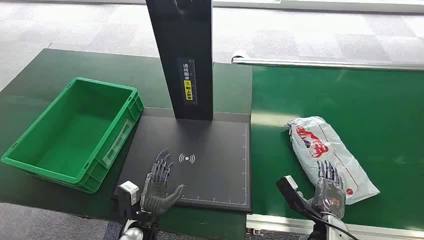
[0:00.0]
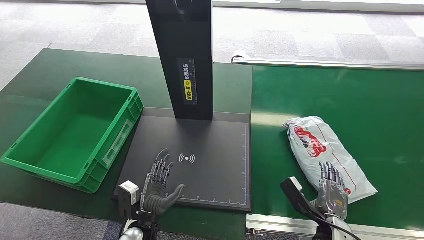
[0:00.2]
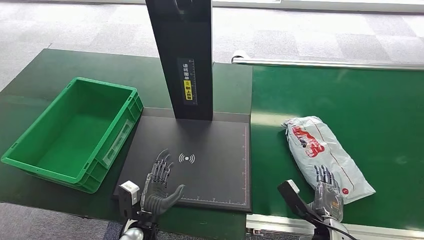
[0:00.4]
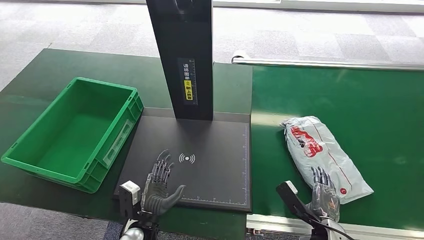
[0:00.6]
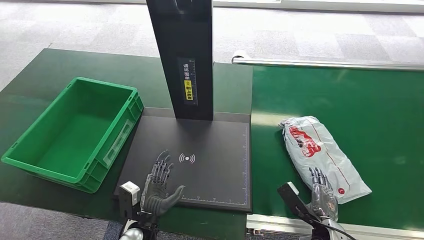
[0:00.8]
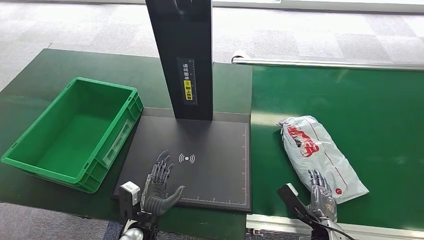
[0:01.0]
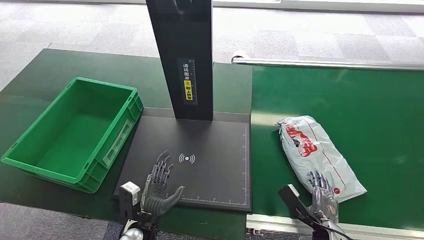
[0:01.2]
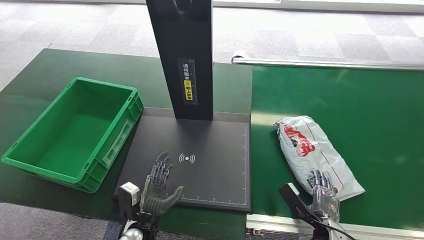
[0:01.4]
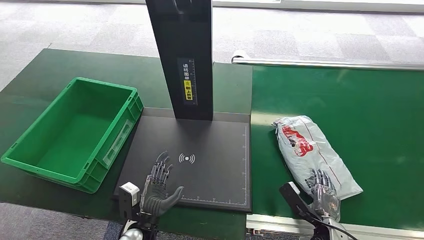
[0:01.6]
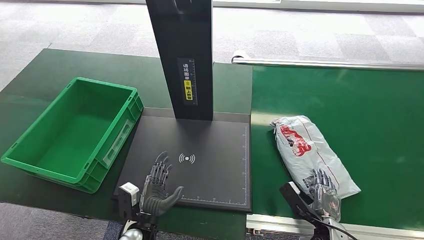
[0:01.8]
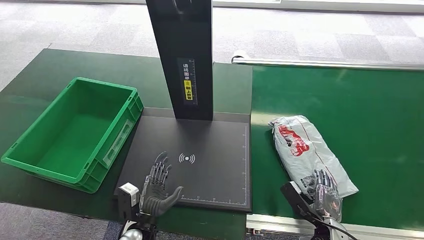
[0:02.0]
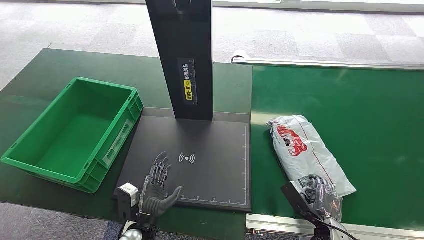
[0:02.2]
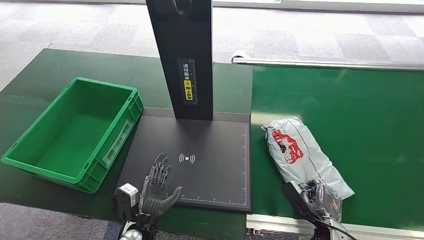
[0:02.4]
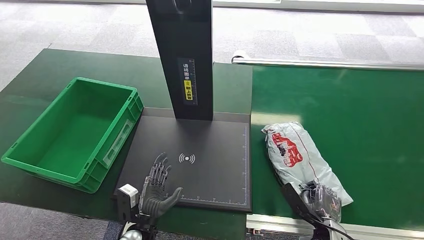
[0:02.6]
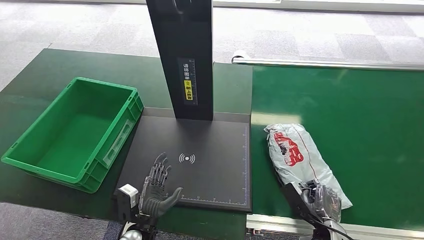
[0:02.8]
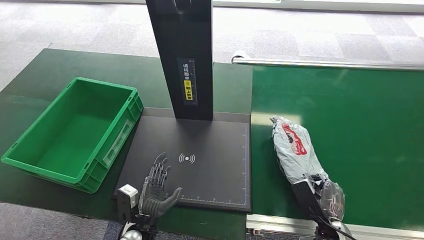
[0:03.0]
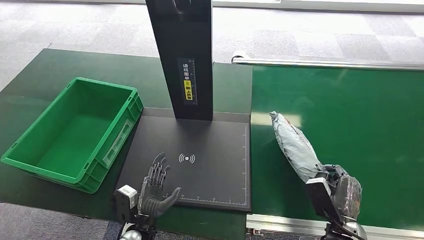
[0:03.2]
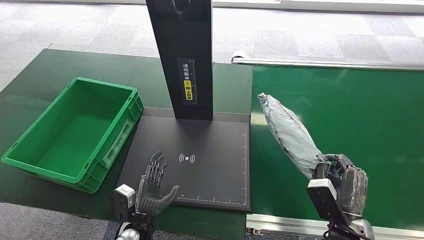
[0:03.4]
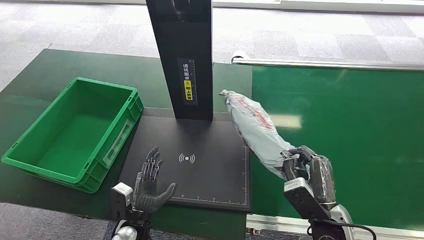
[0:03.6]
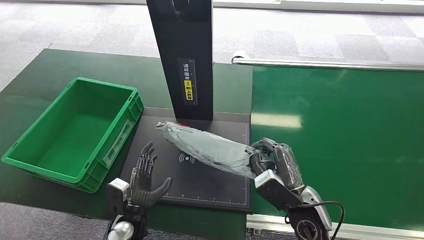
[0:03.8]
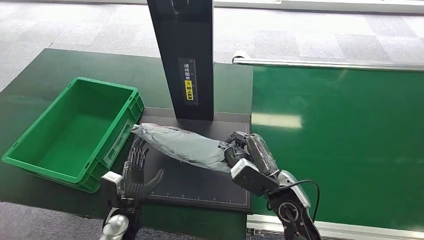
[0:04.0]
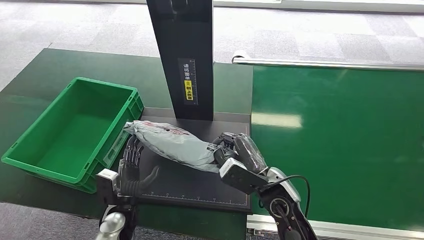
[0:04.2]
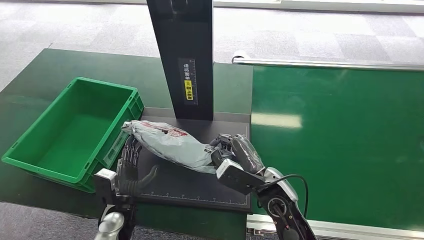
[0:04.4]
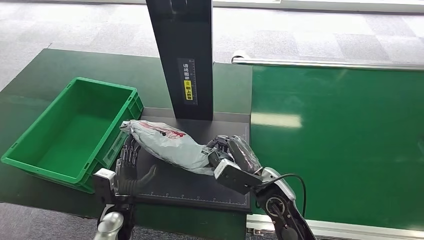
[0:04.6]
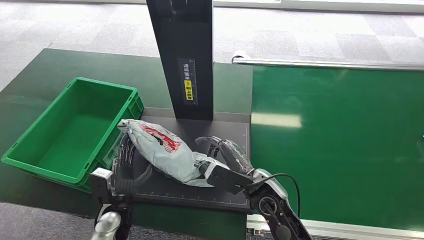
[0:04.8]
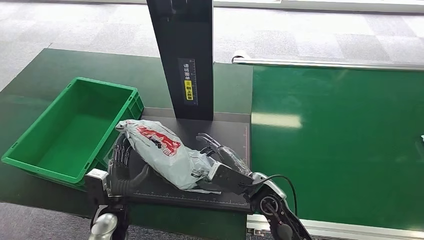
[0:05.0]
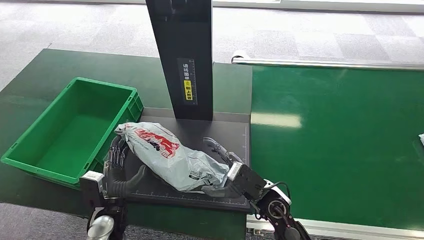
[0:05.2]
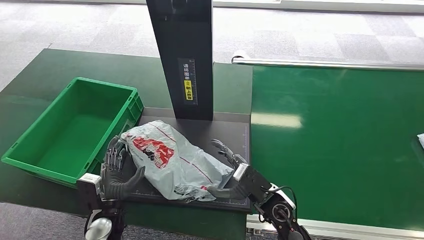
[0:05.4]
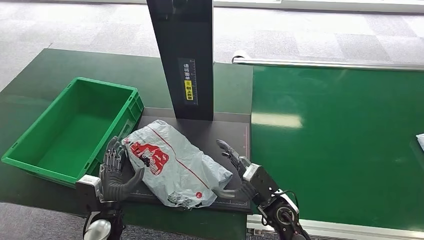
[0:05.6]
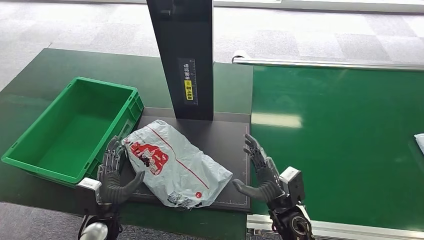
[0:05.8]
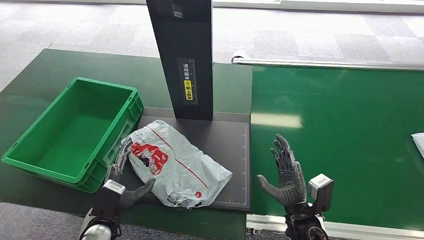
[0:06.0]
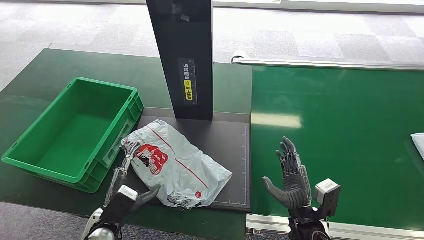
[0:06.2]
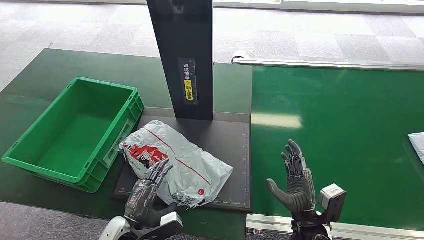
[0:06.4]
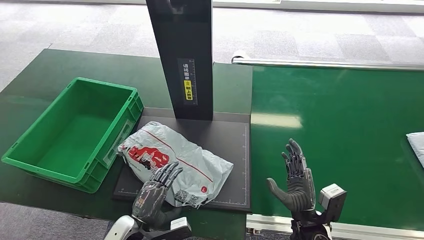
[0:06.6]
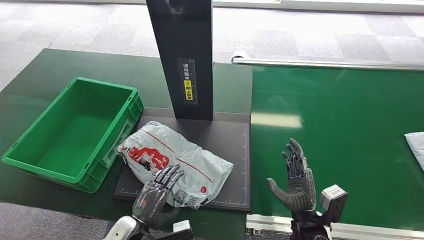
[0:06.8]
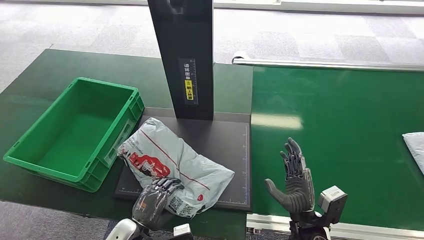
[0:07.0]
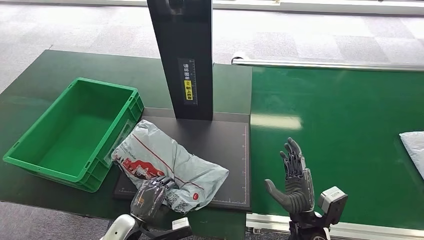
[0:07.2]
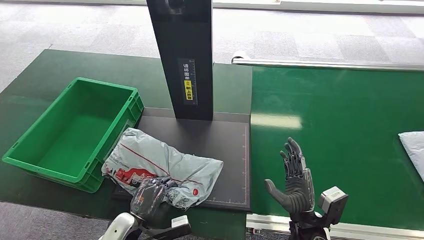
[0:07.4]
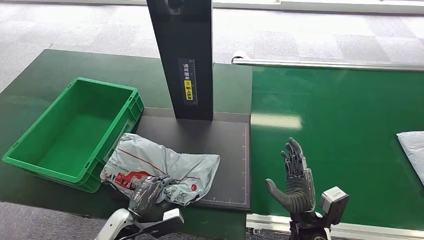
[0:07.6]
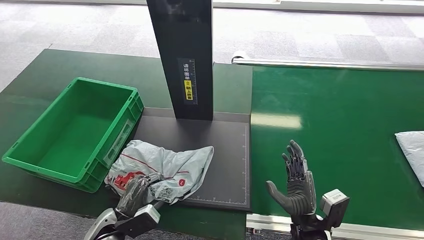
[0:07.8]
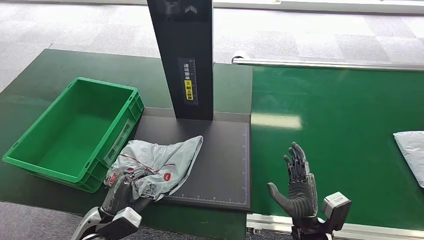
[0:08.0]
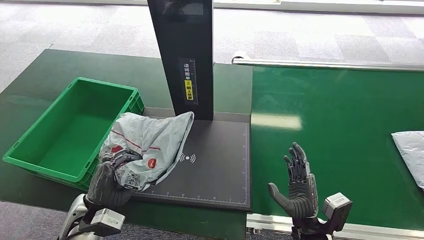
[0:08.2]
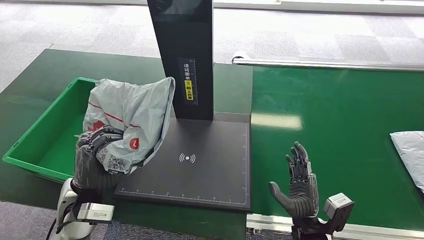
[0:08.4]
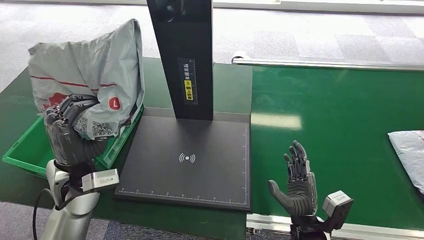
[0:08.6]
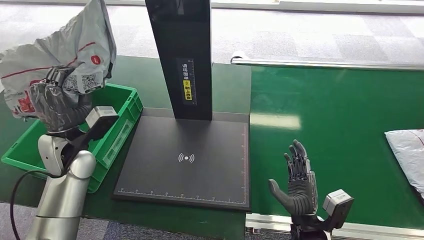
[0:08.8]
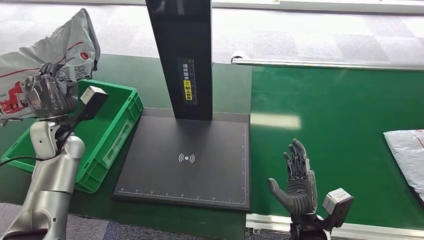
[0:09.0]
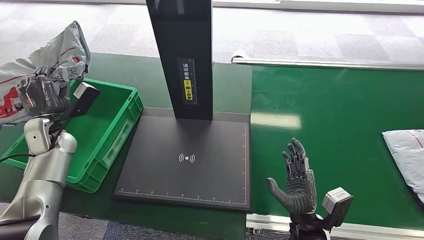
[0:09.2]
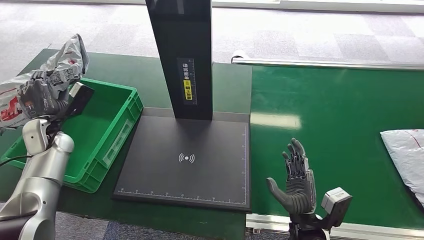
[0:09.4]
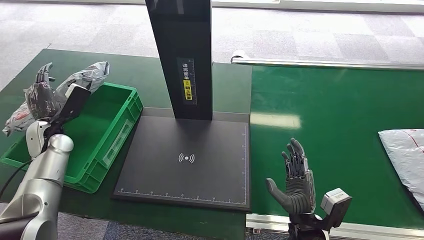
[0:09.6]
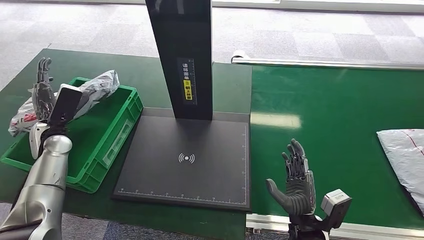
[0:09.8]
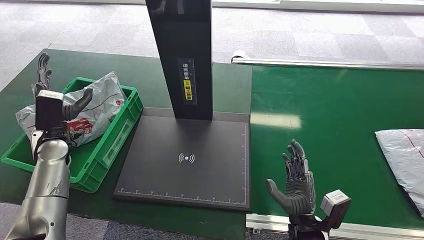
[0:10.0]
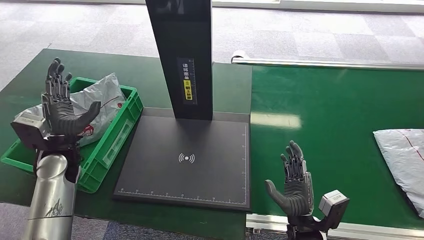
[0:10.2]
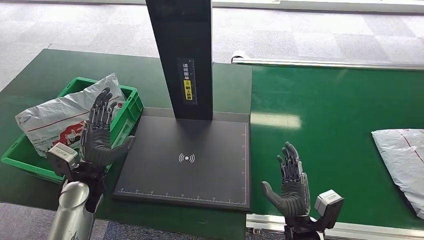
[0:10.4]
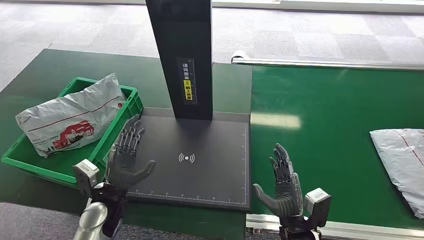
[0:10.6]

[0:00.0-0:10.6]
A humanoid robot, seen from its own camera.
Step, 0:00.0 to 0:03.4: Pick up the package from the conveyor belt.
Step, 0:03.6 to 0:05.4: Place the package onto the inbound machine.
Step, 0:05.8 to 0:08.4: Pick up the package from the inbound machine.
Step, 0:08.6 to 0:10.4: Place the package into the parcel locker.
0:03.0 to 0:04.6: The right hand goes approximately 20 cm to the left, upward and forward. The left hand moves to the left, about 5 cm.
0:04.6 to 0:06.0: The right hand is displaced to the right, downward and backward by roughly 15 cm.

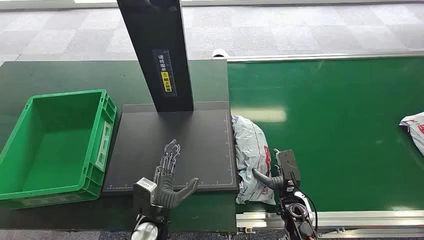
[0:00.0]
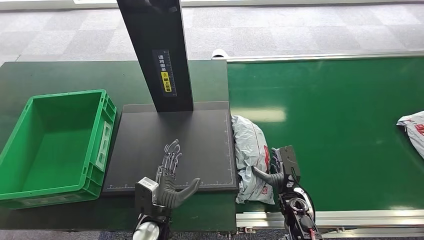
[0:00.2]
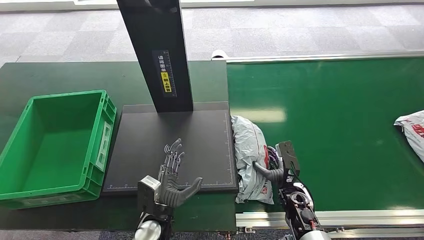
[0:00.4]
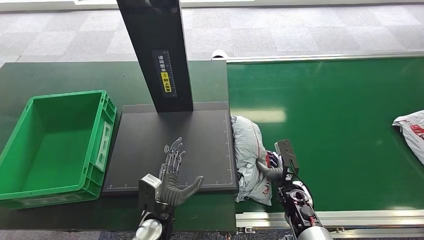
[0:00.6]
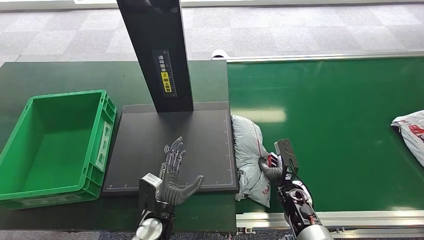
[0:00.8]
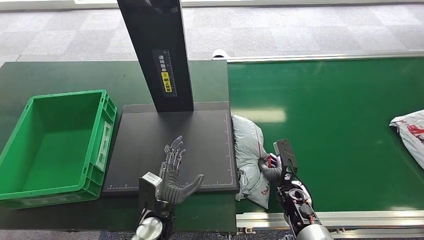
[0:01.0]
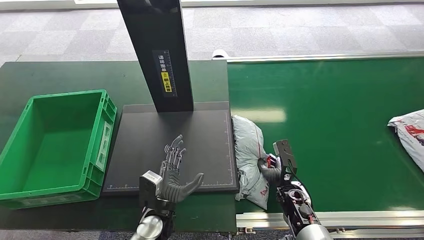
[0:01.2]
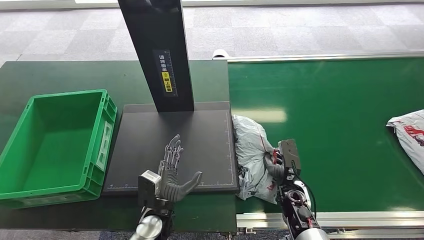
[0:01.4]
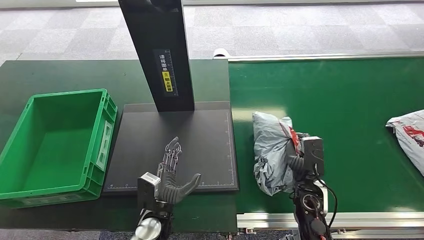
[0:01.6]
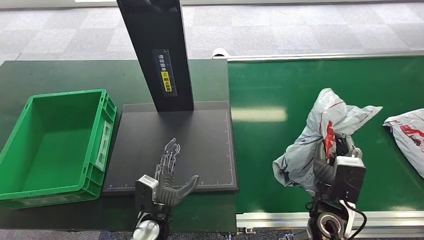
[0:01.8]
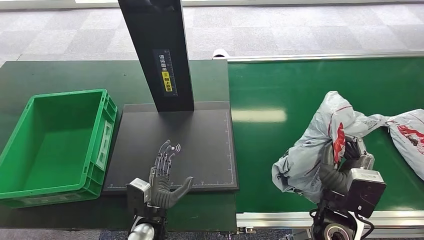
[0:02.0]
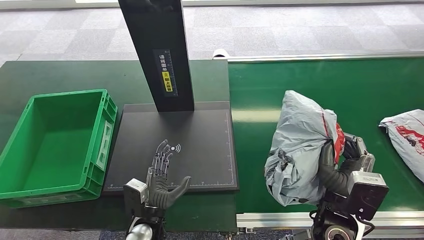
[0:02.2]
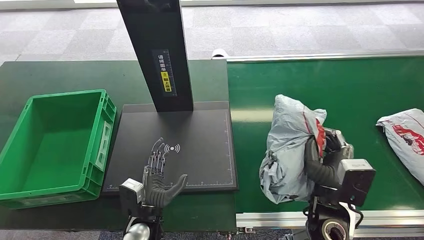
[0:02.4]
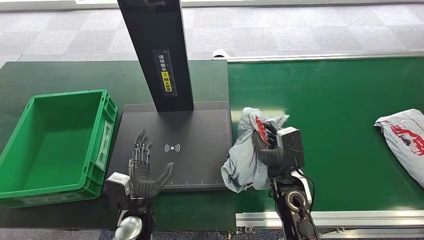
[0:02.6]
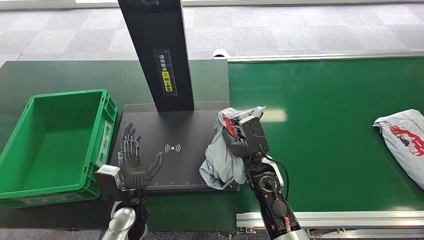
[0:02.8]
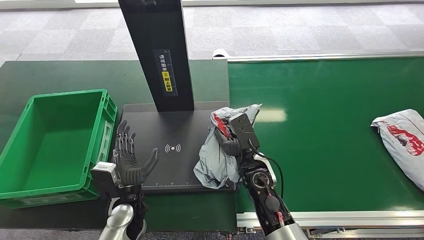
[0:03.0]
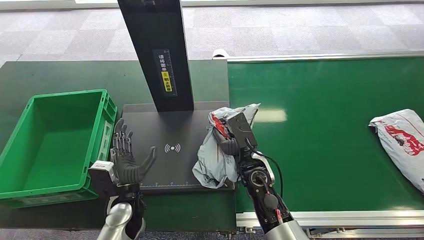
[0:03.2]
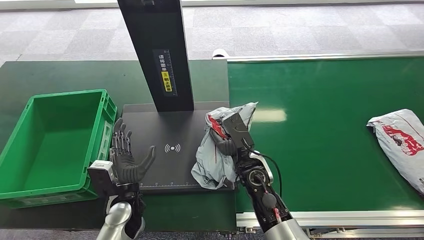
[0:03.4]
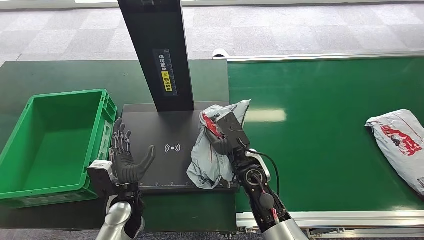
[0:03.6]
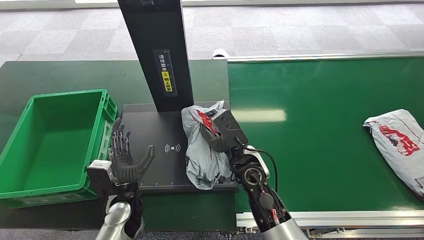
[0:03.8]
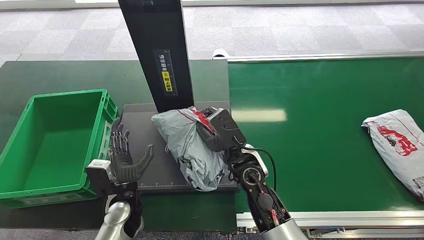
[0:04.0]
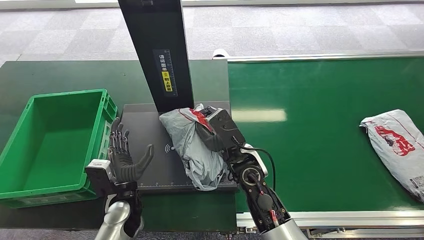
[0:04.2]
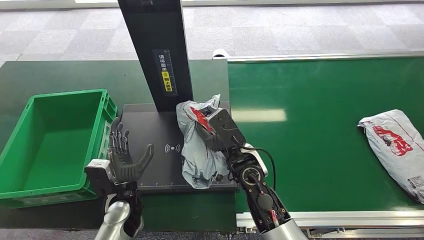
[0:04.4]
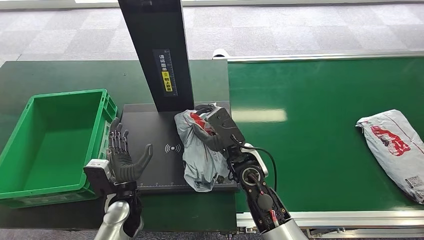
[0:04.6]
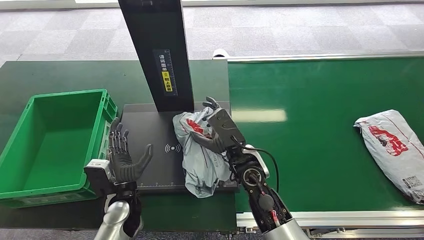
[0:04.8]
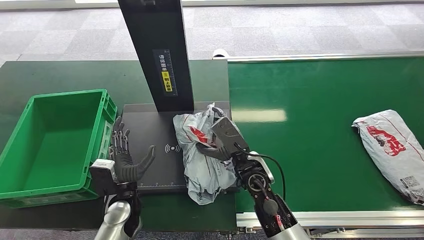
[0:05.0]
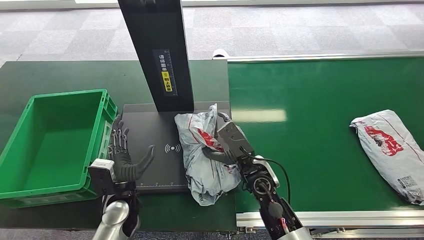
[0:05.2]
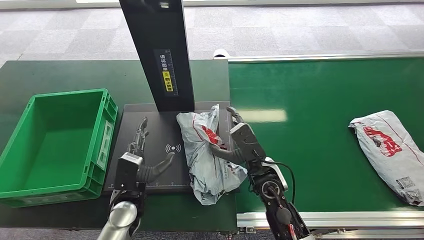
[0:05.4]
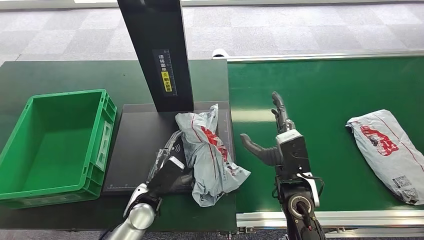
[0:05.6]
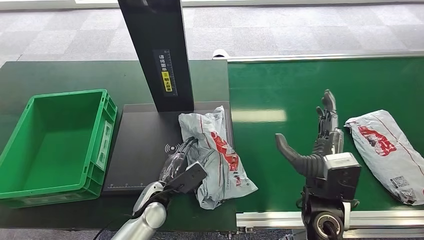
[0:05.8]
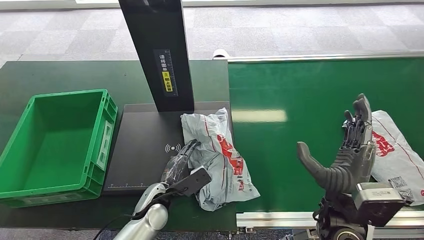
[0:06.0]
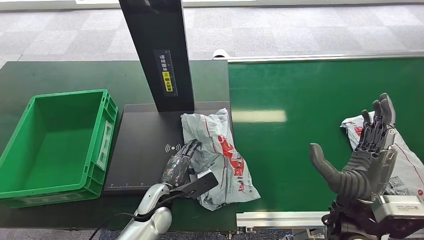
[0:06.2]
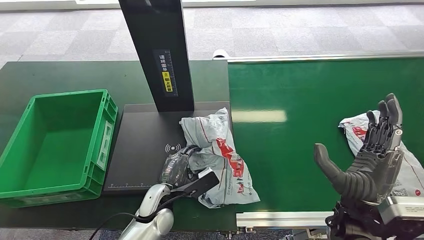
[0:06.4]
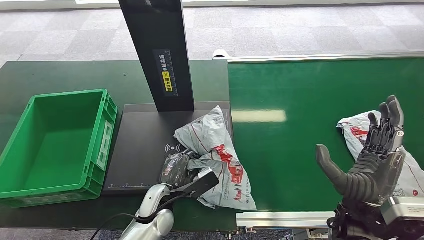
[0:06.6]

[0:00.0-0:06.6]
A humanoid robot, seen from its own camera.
Step, 0:00.0 to 0:02.0: Pick up the package from the conveyor belt.
Step, 0:02.2 to 0:06.0: Place the package onto the inbound machine.
0:01.6 to 0:03.2: The right hand heads to the left, covering about 15 cm; the left hand is displaced to the left by some 5 cm.
0:03.2 to 0:05.0: The hands stay close to where they were, moving slightly.
